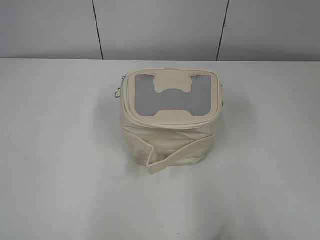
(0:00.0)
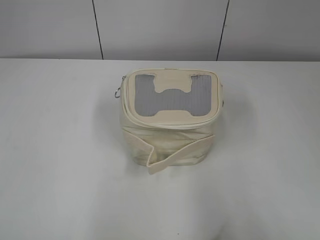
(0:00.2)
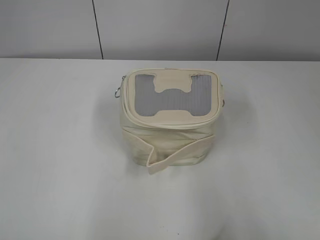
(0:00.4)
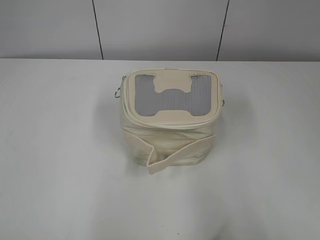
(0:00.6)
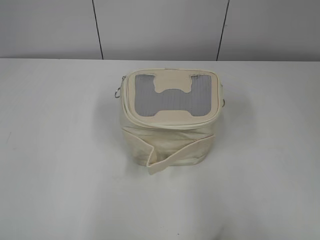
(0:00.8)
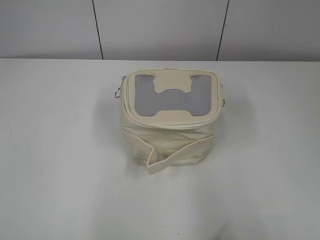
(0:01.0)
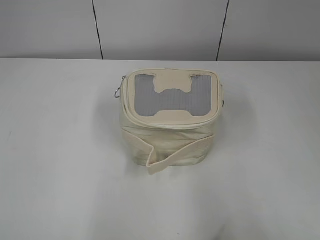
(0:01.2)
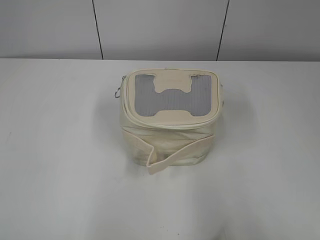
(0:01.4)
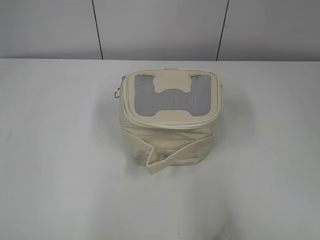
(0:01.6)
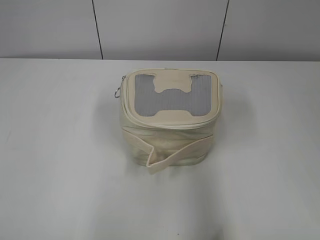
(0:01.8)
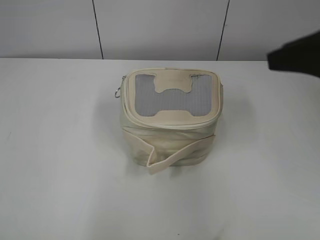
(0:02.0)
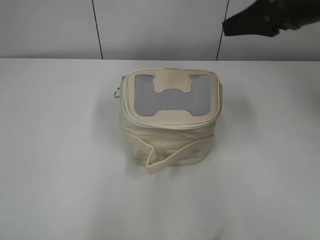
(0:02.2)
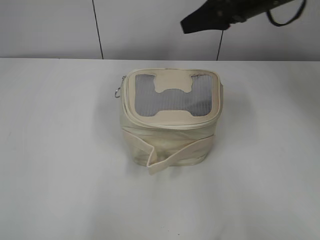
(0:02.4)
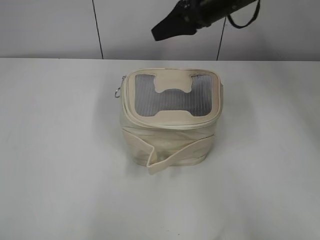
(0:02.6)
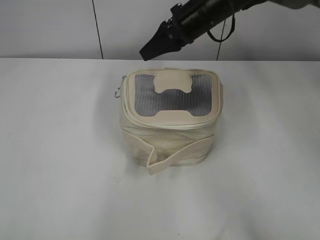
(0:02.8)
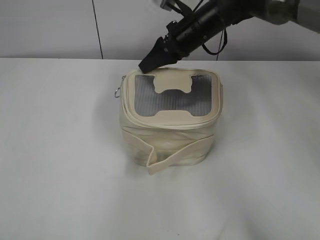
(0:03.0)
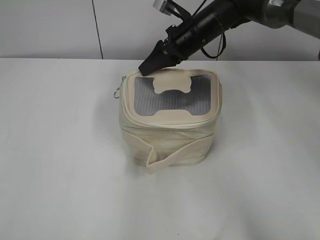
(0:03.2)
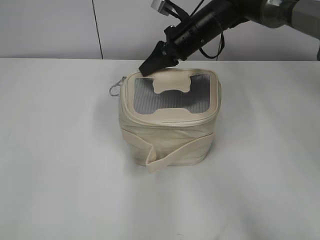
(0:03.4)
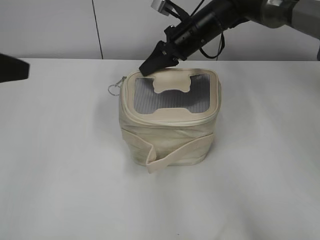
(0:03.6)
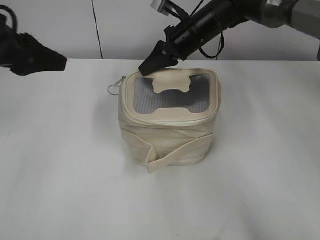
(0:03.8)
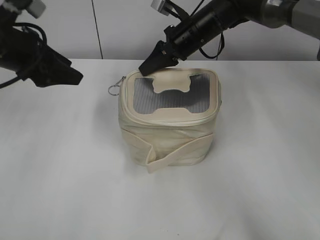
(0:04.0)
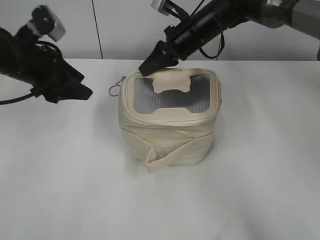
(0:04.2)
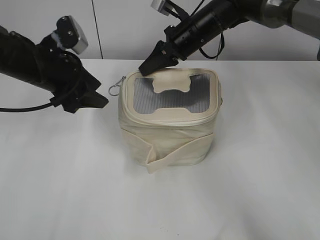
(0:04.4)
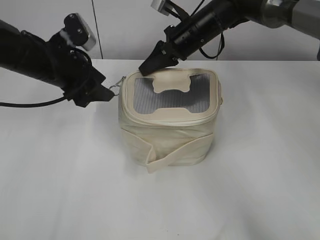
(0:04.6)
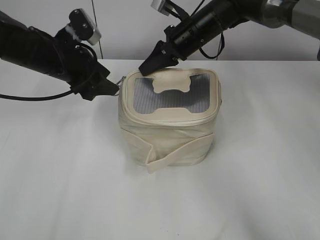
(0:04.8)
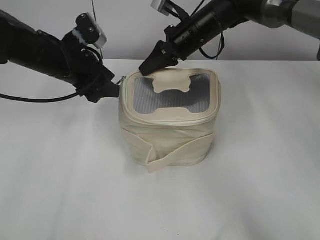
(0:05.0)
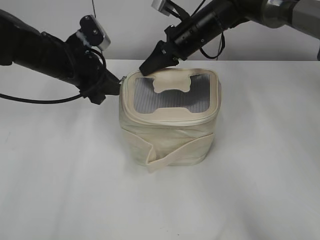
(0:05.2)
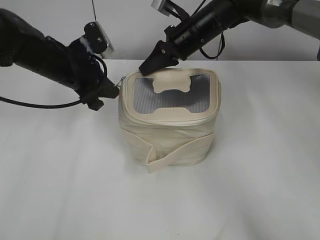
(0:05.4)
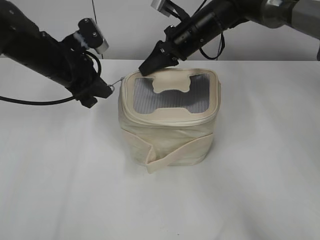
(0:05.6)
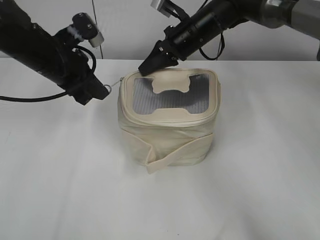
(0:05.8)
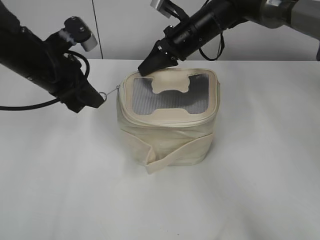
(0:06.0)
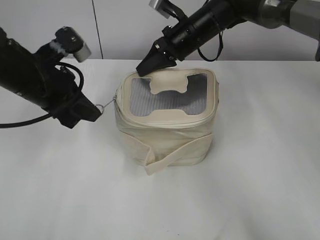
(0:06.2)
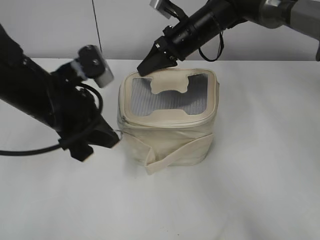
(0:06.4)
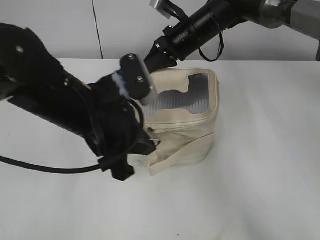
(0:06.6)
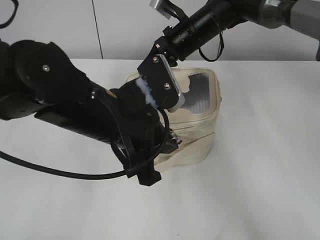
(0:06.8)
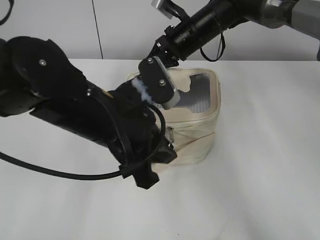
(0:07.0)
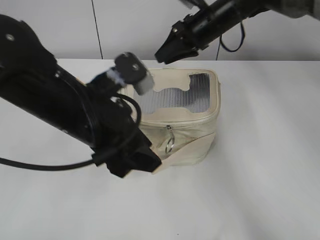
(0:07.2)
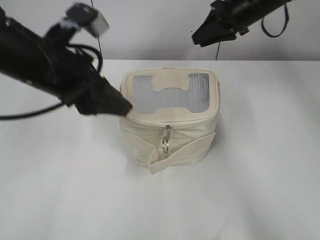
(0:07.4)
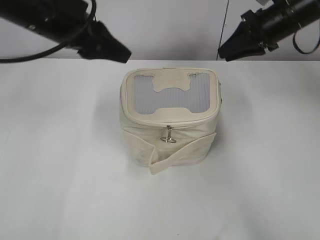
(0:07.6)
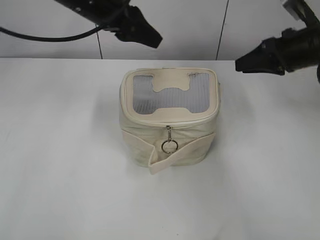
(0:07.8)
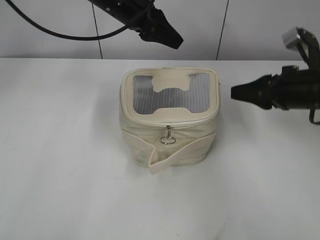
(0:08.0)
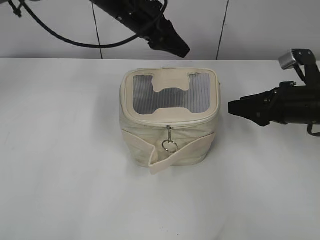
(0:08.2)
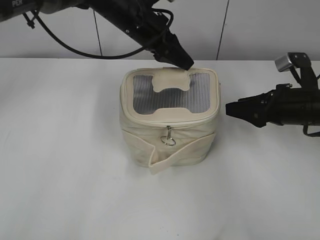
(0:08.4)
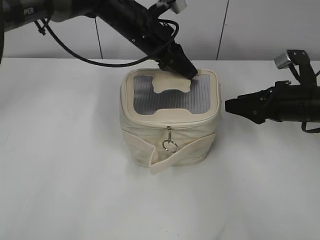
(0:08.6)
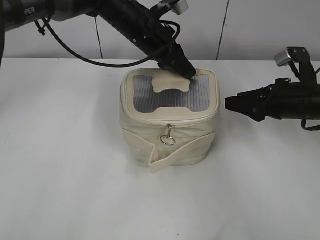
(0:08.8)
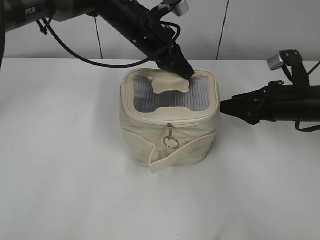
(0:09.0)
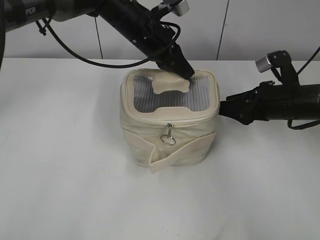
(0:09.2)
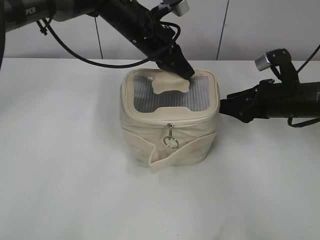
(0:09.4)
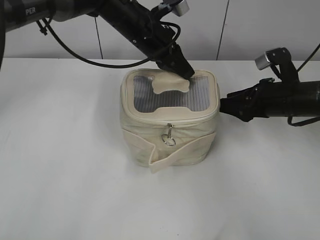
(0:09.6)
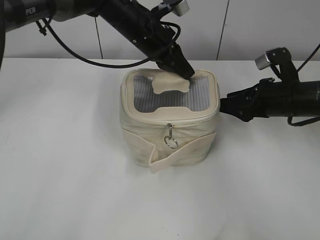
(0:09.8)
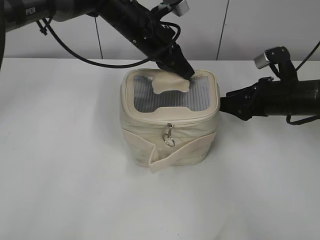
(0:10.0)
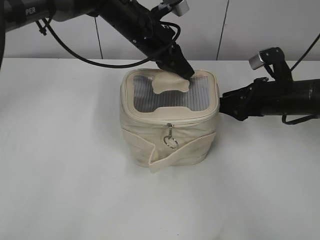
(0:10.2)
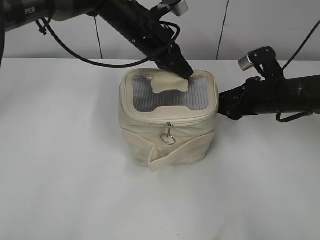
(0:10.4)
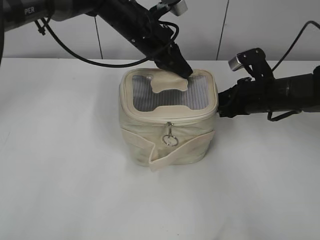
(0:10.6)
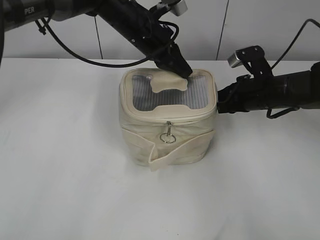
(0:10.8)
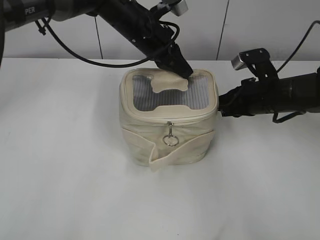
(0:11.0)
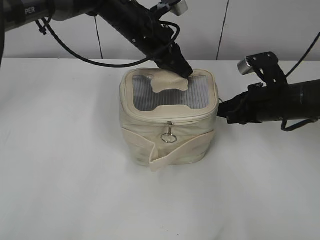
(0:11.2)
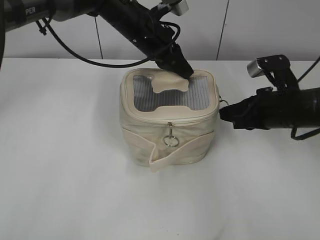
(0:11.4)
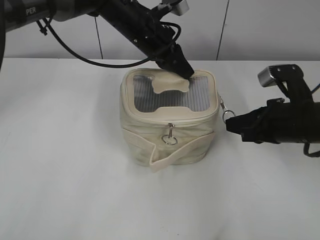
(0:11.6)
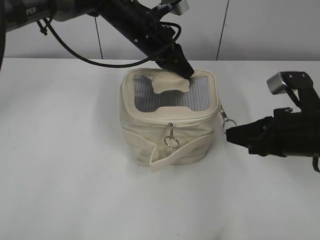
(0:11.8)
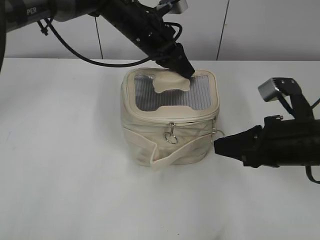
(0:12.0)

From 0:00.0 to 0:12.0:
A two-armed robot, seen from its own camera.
Step, from 0:00.0 to 0:06.8: Zip up the bag with your left hand.
From 0:01.6 to 0:03.0: The right gripper travels forward and to the left by some 50 cm.
From 0:03.0 to 0:04.4: The left gripper heads forward, covering roughly 30 cm, and opens up, while the right gripper closes its fingers.
From 0:04.4 to 0:06.0: The left gripper closes up.
From 0:06.0 to 0:07.6: The left gripper shifts roughly 10 cm upward, moves about 10 cm to the right and comes back, and opens its fingers; the right gripper goes roughly 15 cm to the right, and opens.
From 0:07.6 to 0:09.0: The left gripper goes about 20 cm to the right, forward and downward, and closes up. The right gripper is displaced backward and downward by some 15 cm, and opens its fingers.
From 0:09.0 to 0:10.4: There are only small adjustments of the grippers.
From 0:10.4 to 0:12.0: The right gripper is displaced backward by roughly 10 cm, and closes its fingers.

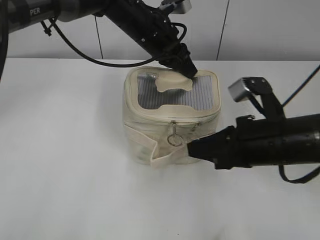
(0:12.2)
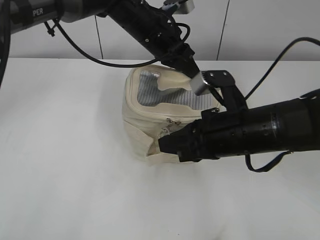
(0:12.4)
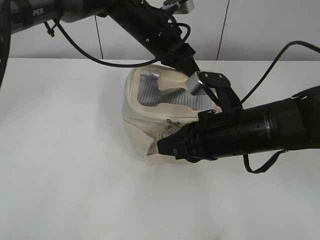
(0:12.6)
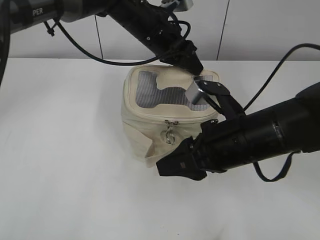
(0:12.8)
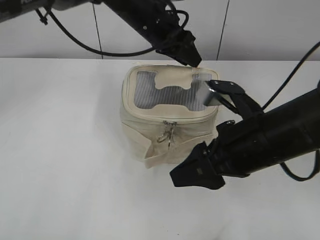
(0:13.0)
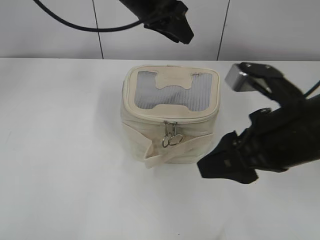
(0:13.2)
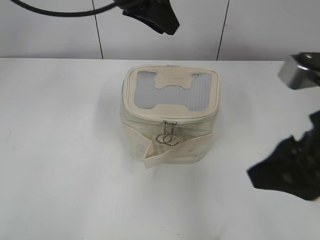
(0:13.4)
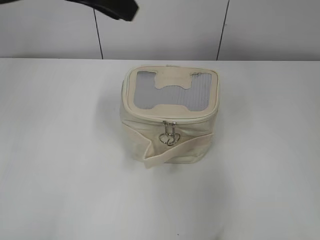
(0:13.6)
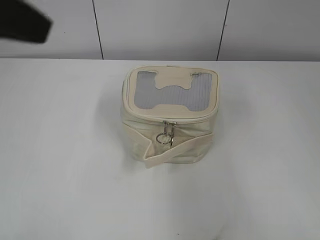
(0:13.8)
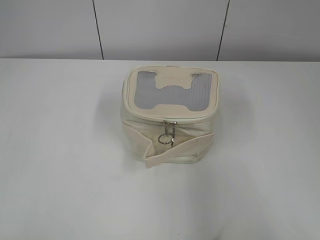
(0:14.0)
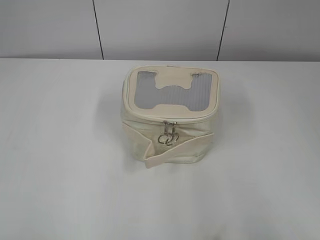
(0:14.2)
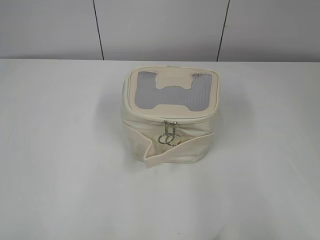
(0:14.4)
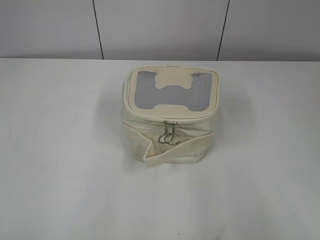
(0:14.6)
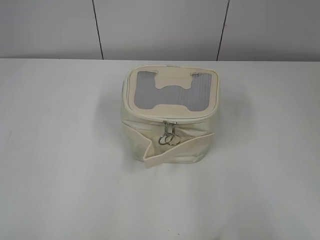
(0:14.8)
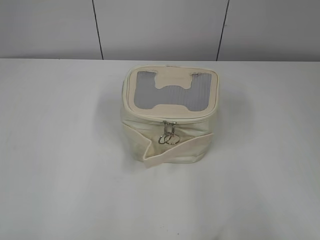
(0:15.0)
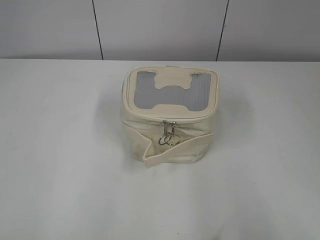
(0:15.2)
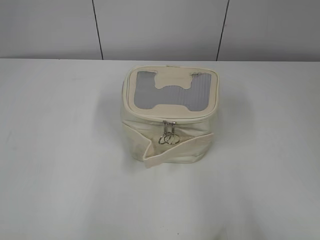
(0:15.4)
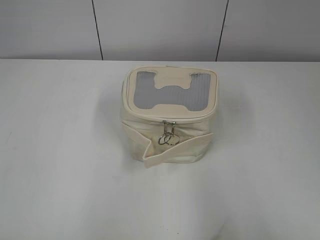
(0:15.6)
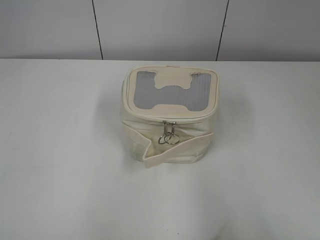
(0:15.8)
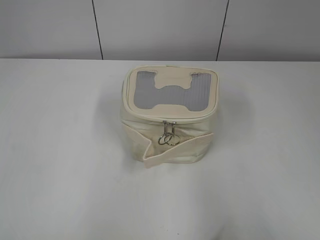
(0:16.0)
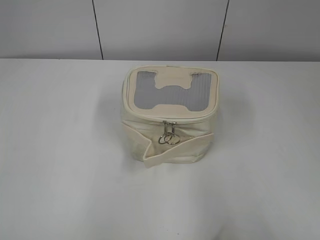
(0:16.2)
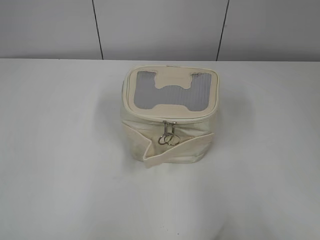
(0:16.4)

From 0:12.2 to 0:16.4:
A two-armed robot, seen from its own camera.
Step, from 0:12.8 to 0:13.0: Hold the bag with your left hand.
From 0:12.2 to 0:13.6: The right gripper shifts about 15 cm upward, backward and to the right, and opens its fingers; the left gripper heads upward, backward and to the left, covering roughly 25 cm, and opens up.
From 0:13.6 to 0:15.0: The right gripper goes about 15 cm backward and to the right, while the left gripper moves backward and to the left, about 35 cm.

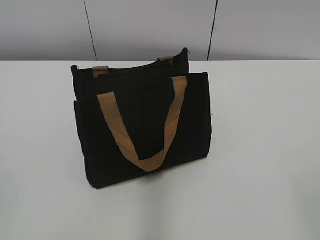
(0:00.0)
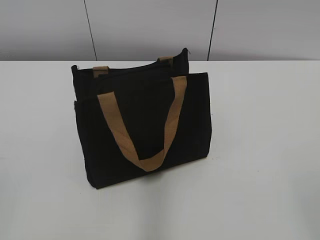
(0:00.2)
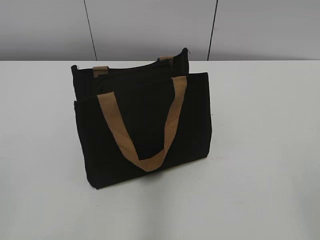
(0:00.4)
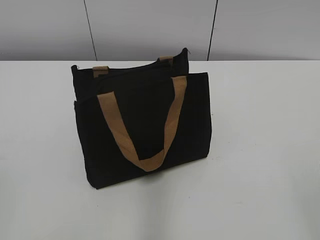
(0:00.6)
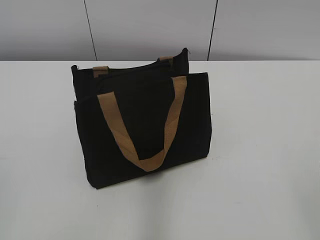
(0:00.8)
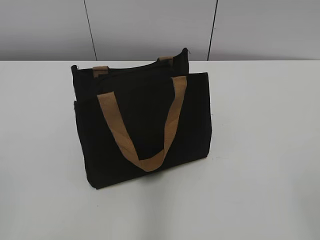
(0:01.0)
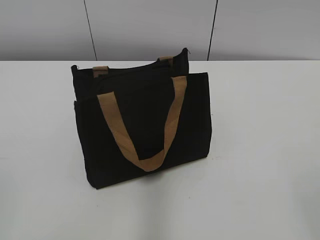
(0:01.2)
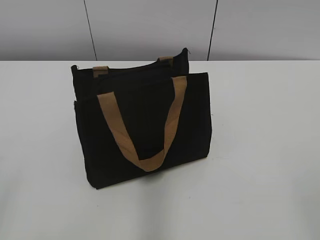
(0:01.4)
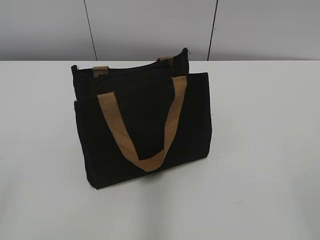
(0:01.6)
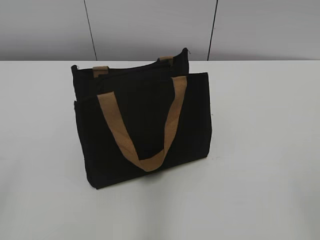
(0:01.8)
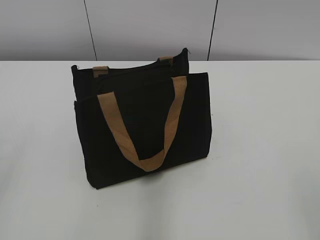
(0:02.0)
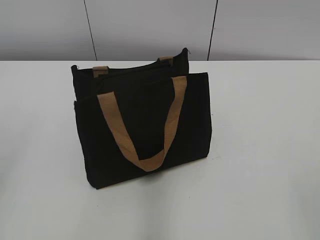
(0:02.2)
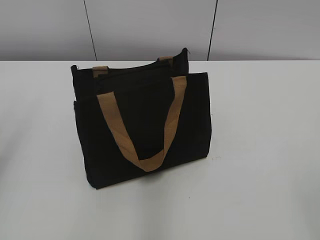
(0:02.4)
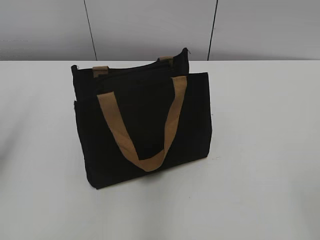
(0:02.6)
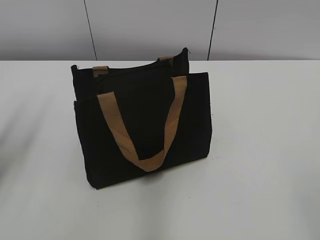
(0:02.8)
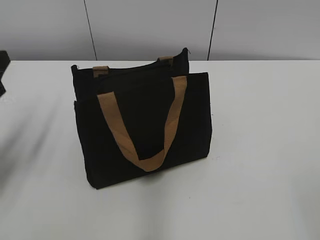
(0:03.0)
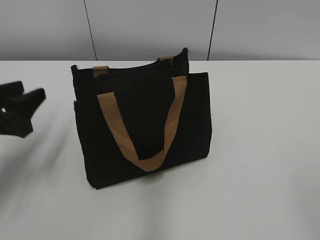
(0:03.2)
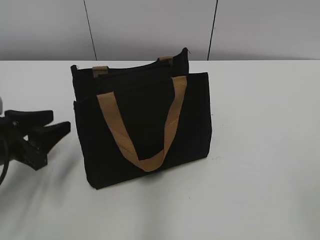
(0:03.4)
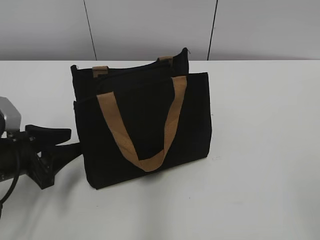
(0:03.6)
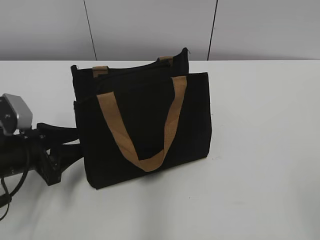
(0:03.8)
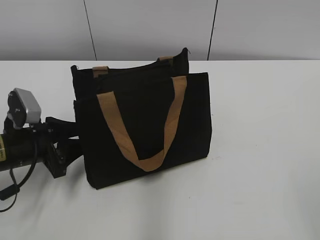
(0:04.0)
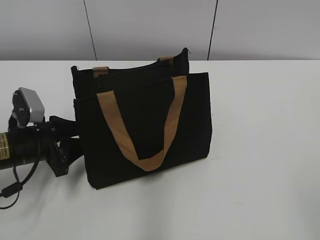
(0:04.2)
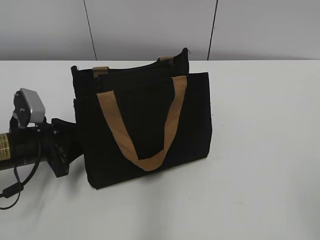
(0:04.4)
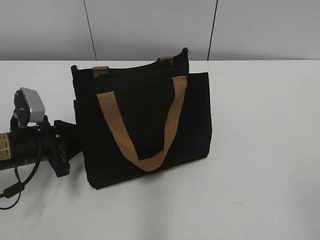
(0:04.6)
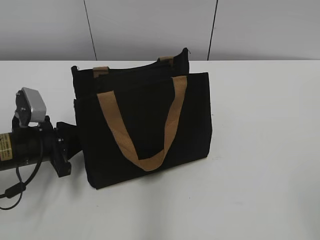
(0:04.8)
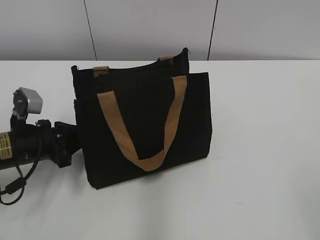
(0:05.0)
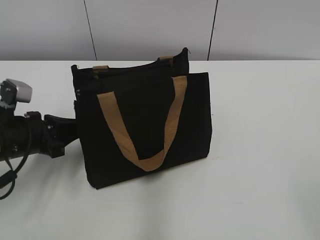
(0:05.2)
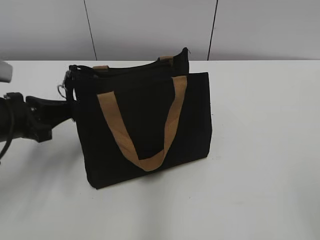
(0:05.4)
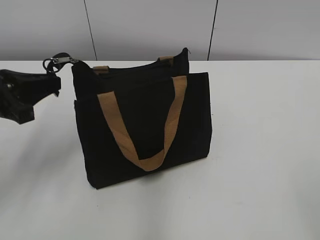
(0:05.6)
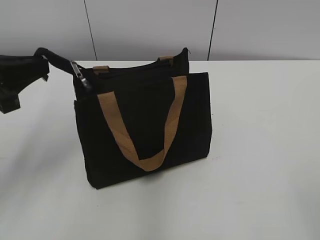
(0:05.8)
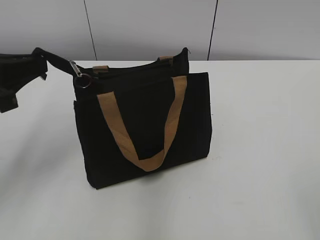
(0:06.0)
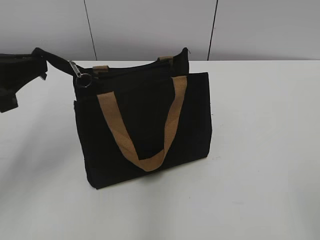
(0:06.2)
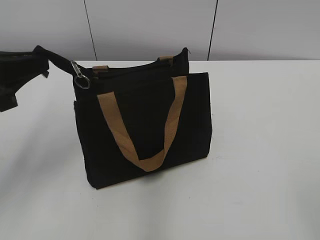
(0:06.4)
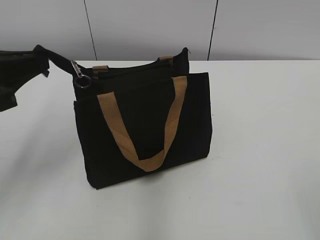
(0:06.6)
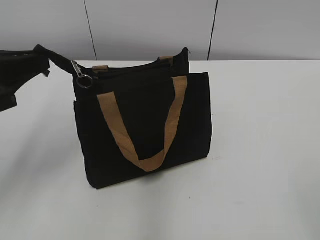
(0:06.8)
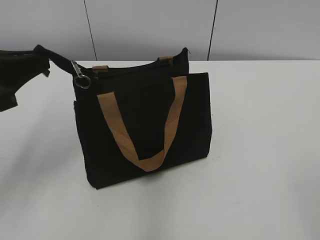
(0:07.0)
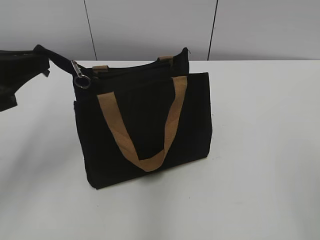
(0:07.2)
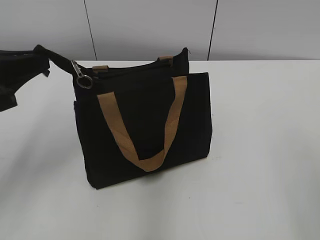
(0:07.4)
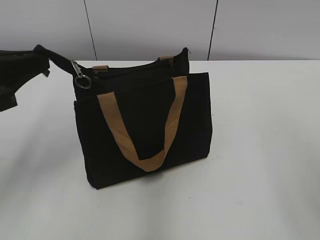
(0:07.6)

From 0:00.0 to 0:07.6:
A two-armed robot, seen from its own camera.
From 0:01.6 to 0:03.0: The left gripper moves forward, approximately 25 cm.
From 0:03.0 to 0:04.6: The left gripper shifts approximately 15 cm downward and to the right, and closes.
From 0:04.6 to 0:06.0: The left gripper goes approximately 15 cm upward, and closes up.
